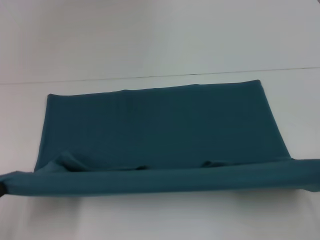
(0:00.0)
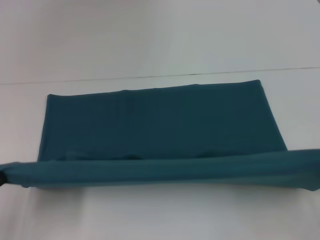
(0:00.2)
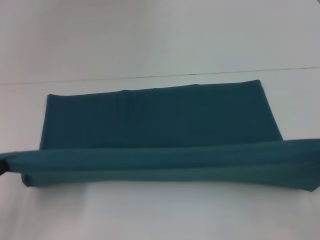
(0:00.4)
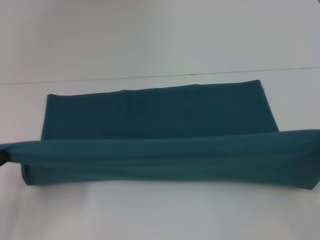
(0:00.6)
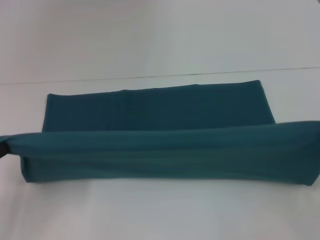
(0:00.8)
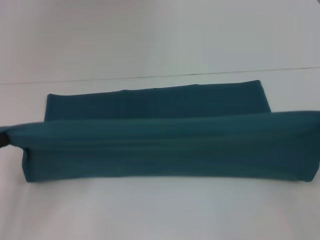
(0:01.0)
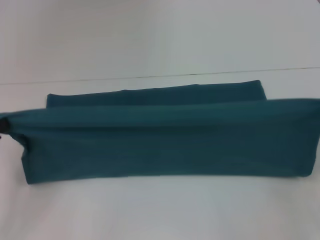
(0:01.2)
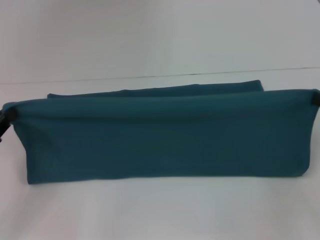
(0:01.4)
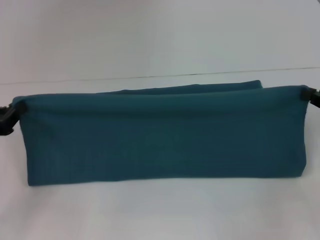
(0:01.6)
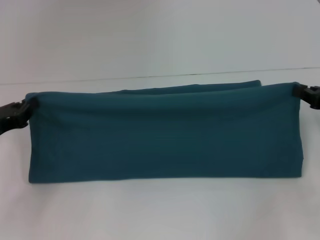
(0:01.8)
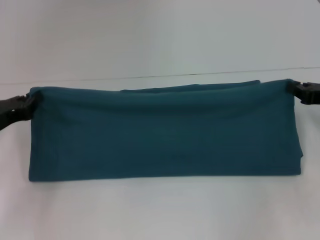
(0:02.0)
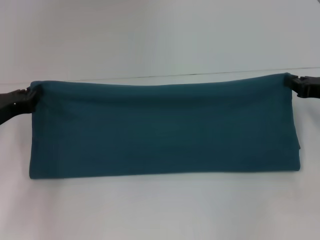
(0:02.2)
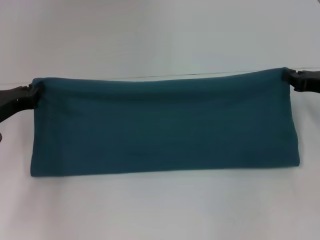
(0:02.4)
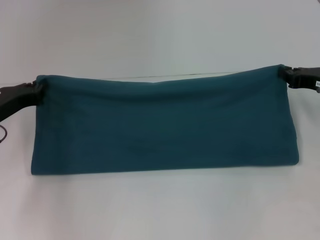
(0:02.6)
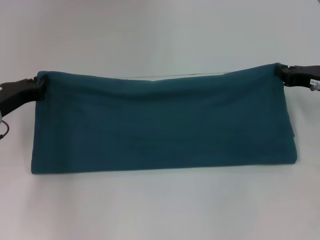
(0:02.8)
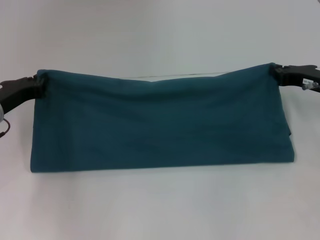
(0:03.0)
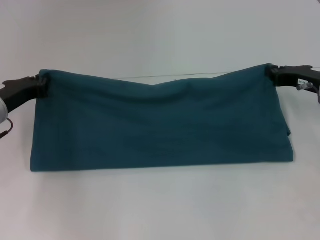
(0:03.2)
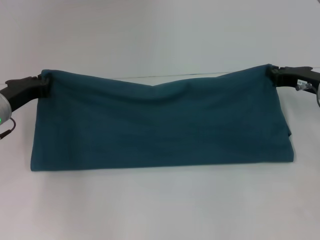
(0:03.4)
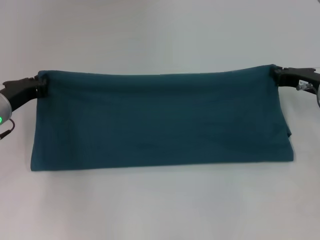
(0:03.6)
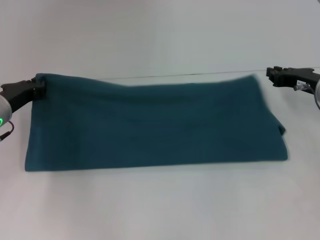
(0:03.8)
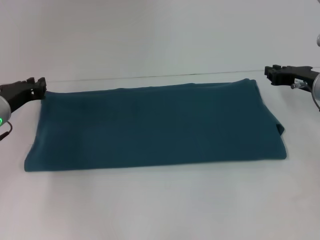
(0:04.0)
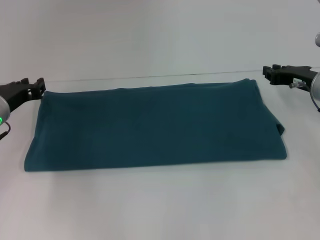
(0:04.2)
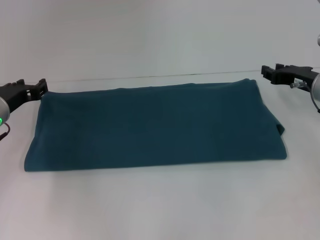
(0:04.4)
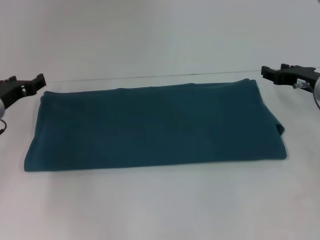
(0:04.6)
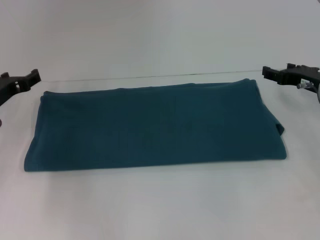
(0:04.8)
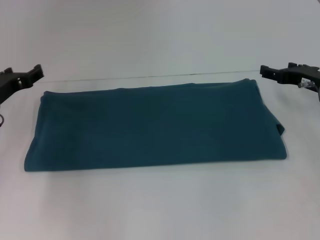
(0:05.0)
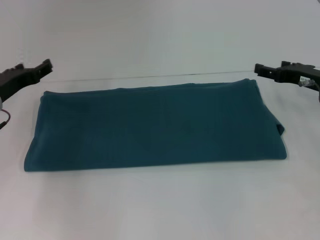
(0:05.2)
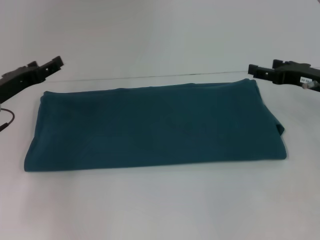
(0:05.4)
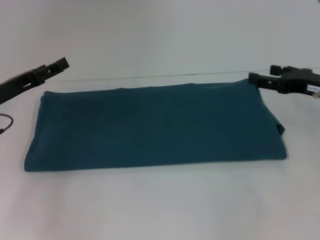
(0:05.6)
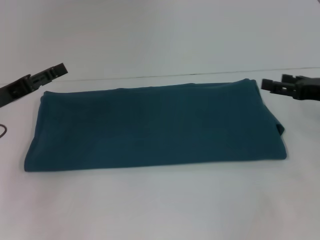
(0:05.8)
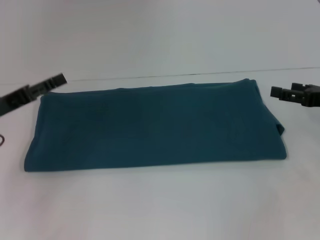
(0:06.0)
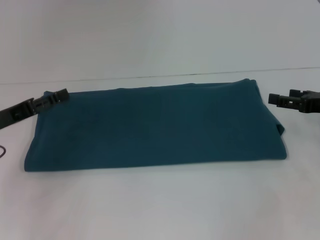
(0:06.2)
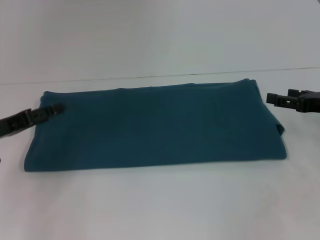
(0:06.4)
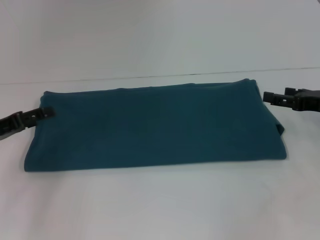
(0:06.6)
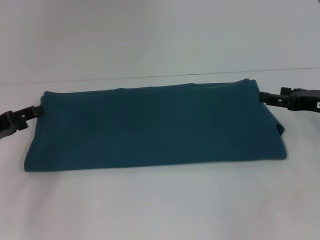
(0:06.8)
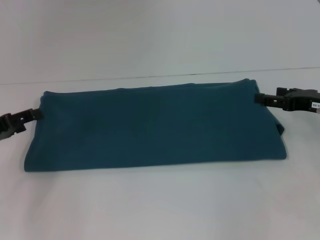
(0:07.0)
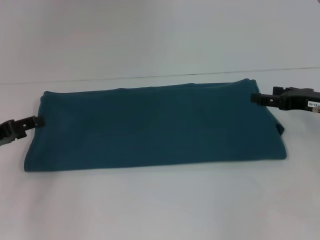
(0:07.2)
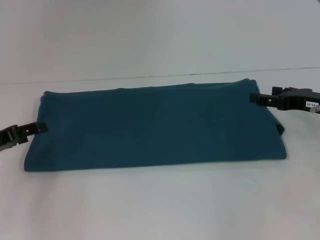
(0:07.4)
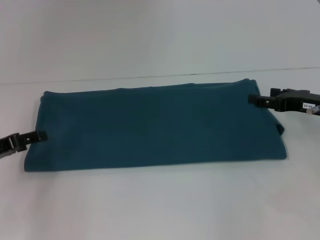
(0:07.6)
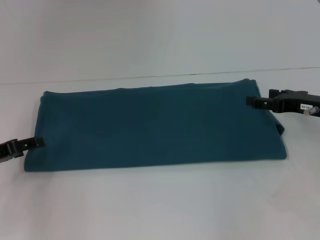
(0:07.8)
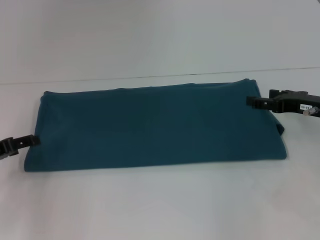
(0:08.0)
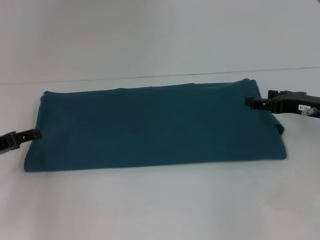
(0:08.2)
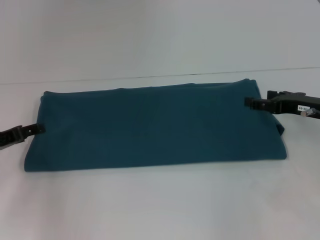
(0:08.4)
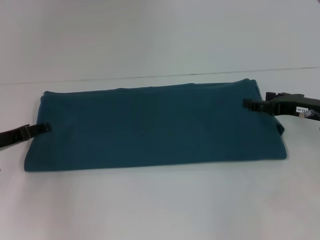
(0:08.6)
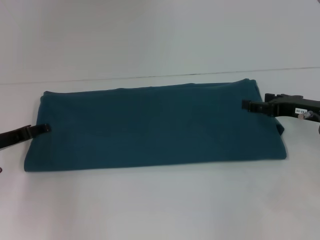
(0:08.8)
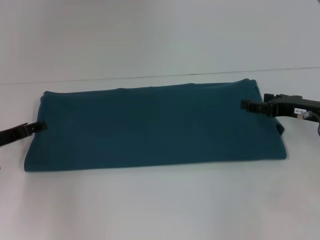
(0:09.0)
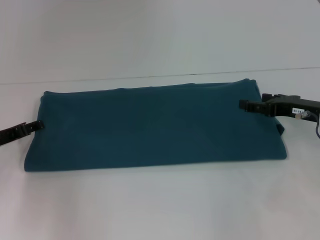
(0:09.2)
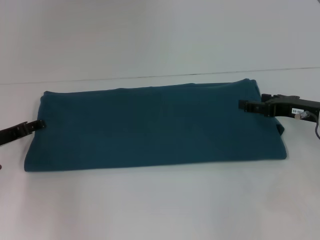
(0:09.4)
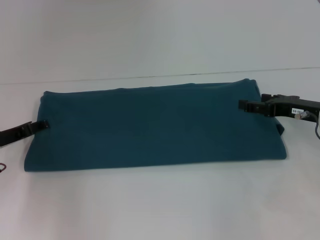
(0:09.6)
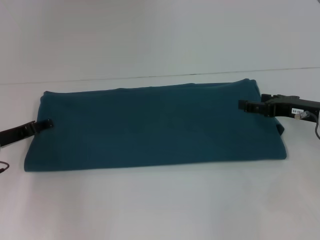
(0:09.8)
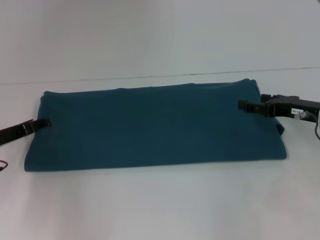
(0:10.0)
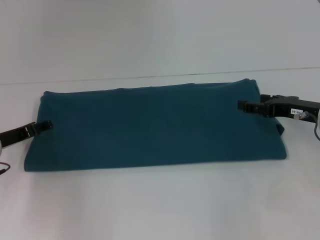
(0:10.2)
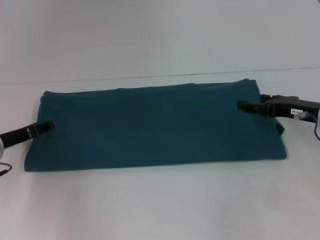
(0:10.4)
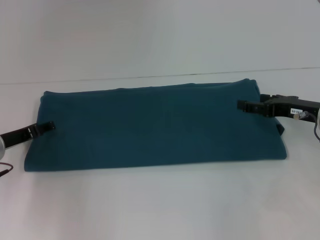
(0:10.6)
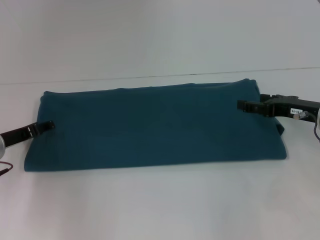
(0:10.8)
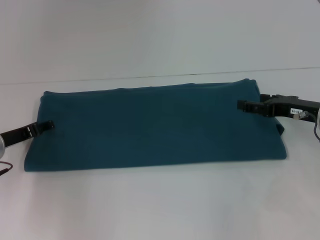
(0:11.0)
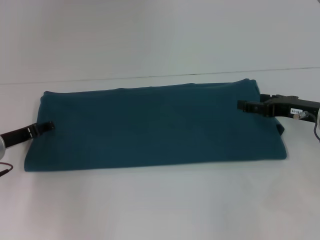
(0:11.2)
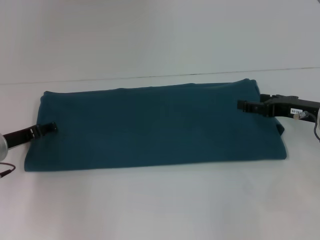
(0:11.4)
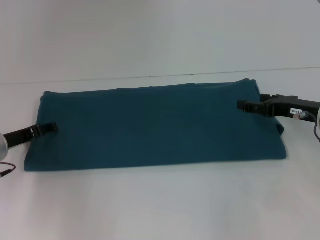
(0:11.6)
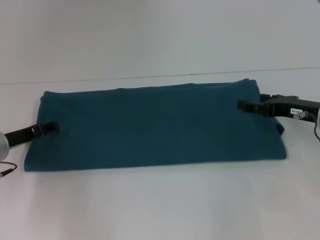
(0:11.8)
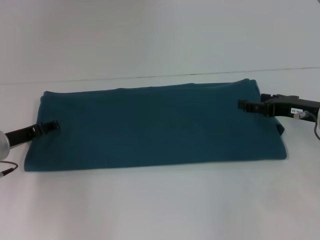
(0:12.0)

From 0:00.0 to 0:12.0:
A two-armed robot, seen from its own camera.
Step, from 0:00.0 to 0:04.6: Fold the clothes to the right.
From 0:00.0 to 0:01.6: The two grippers go approximately 15 cm forward.
From 0:01.6 to 0:03.0: The left gripper heads forward and to the right, covering roughly 10 cm; the right gripper moves forward and to the left, roughly 10 cm.
From 0:03.0 to 0:04.4: The left gripper opens up.
From 0:04.4 to 0:06.0: The left gripper goes approximately 5 cm backward, and opens, while the right gripper is displaced backward and to the right by roughly 10 cm, and opens up.
From 0:07.6 to 0:09.0: The grippers stay close to where they were, moving slightly.
From 0:09.0 to 0:10.4: There are only small adjustments of the grippers.
From 0:10.4 to 0:12.0: The two grippers keep their place.

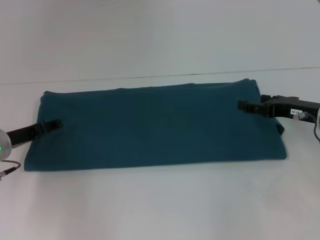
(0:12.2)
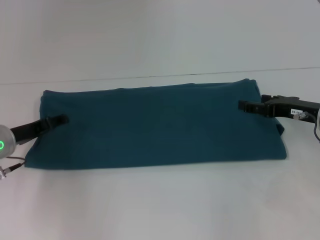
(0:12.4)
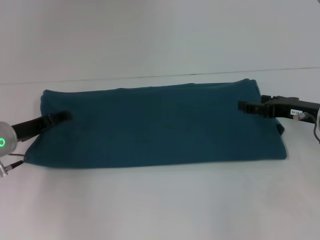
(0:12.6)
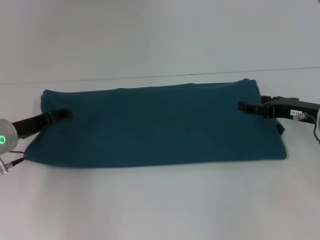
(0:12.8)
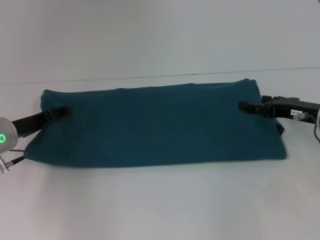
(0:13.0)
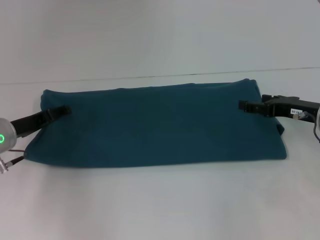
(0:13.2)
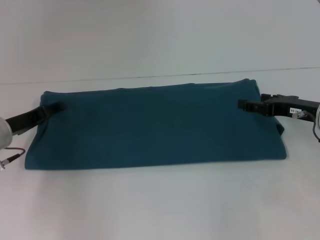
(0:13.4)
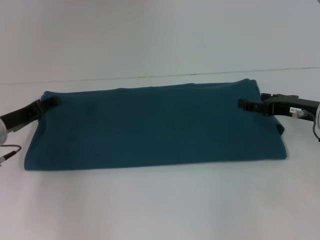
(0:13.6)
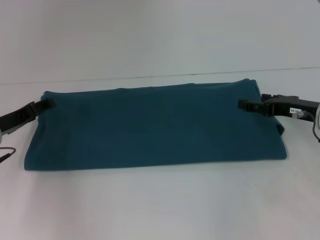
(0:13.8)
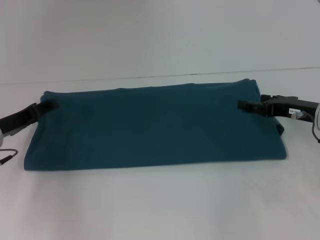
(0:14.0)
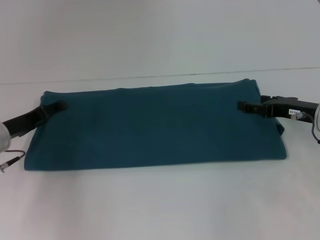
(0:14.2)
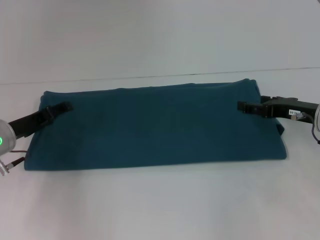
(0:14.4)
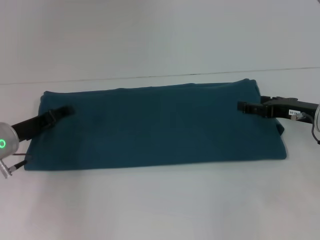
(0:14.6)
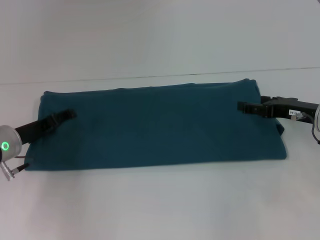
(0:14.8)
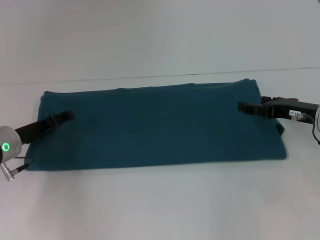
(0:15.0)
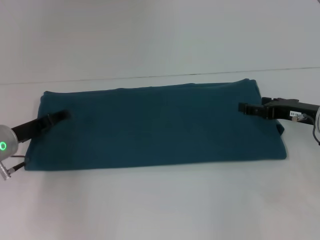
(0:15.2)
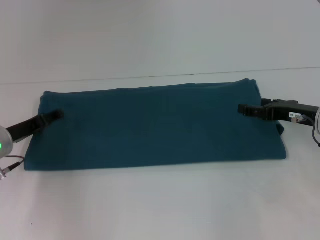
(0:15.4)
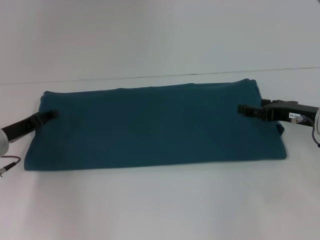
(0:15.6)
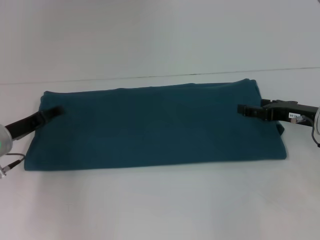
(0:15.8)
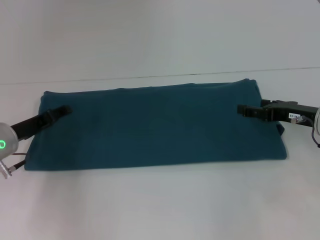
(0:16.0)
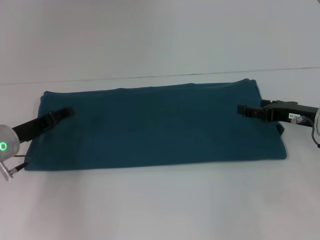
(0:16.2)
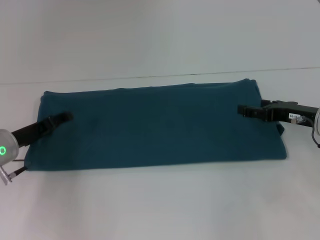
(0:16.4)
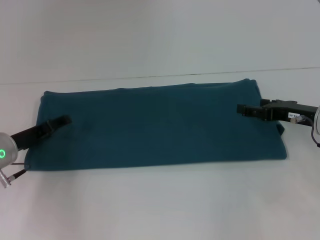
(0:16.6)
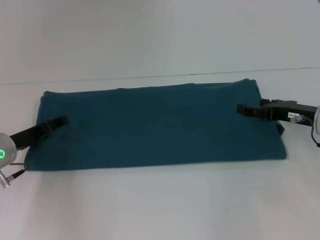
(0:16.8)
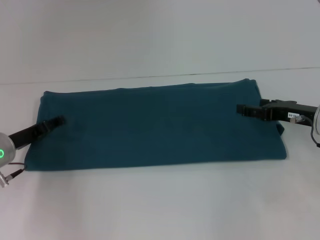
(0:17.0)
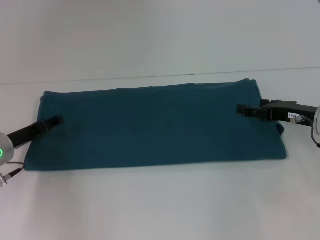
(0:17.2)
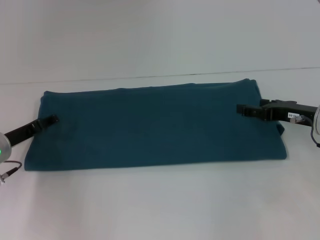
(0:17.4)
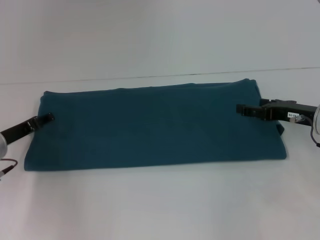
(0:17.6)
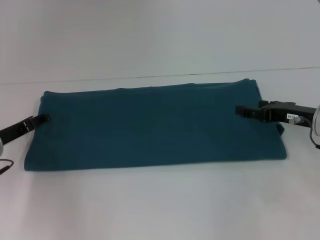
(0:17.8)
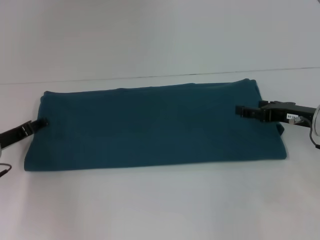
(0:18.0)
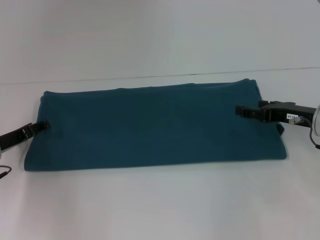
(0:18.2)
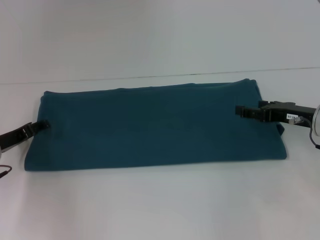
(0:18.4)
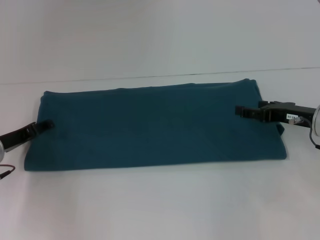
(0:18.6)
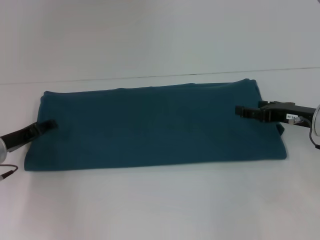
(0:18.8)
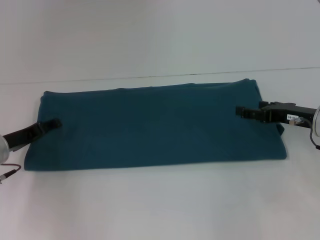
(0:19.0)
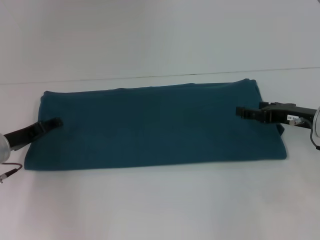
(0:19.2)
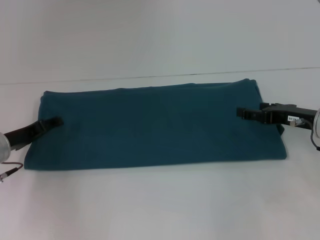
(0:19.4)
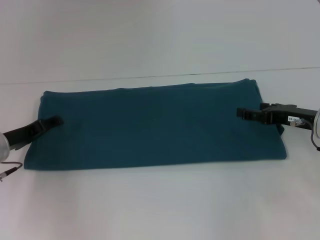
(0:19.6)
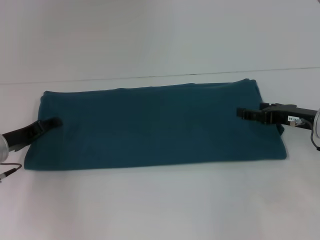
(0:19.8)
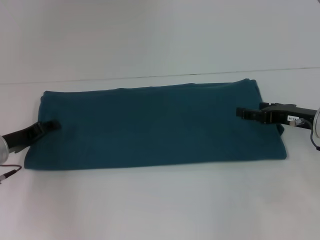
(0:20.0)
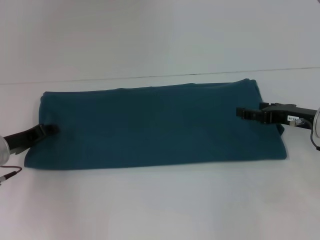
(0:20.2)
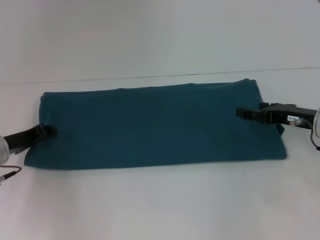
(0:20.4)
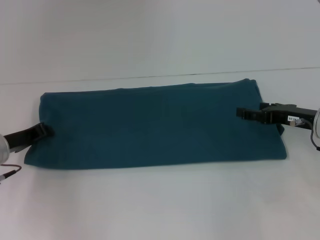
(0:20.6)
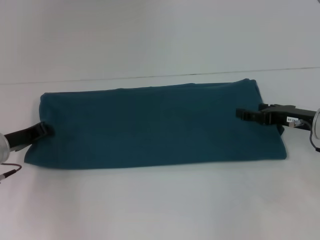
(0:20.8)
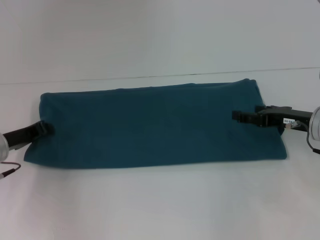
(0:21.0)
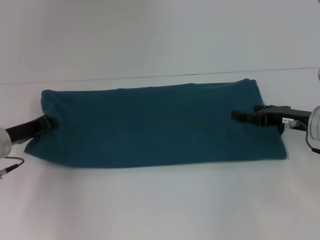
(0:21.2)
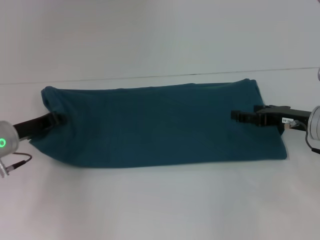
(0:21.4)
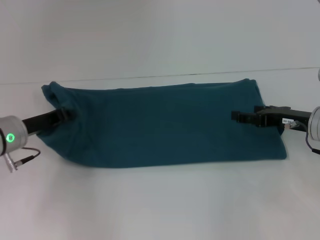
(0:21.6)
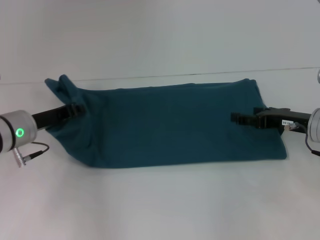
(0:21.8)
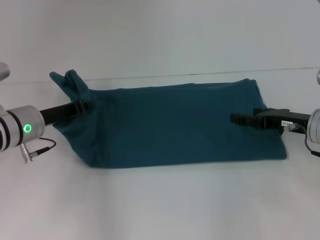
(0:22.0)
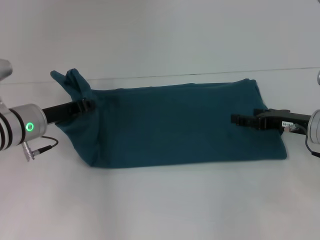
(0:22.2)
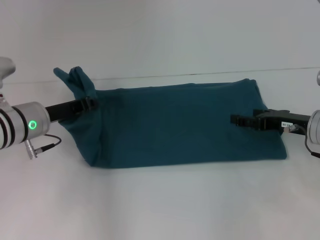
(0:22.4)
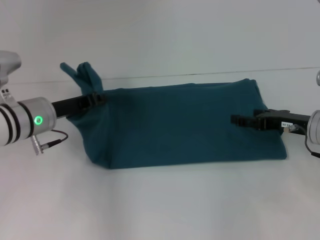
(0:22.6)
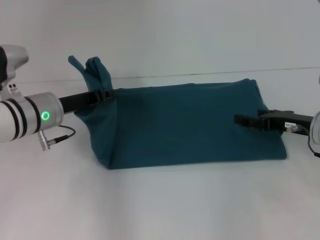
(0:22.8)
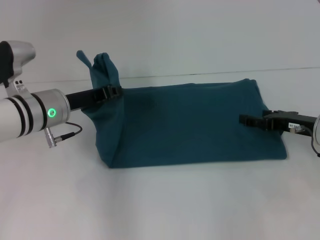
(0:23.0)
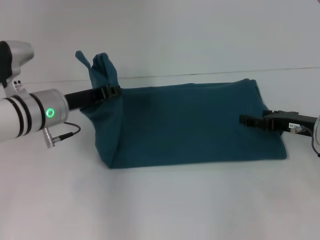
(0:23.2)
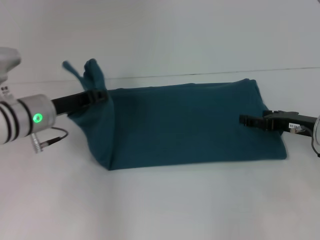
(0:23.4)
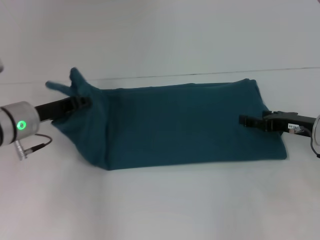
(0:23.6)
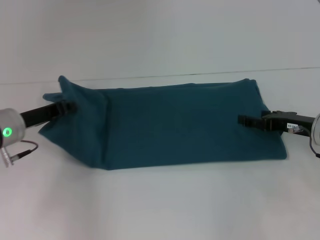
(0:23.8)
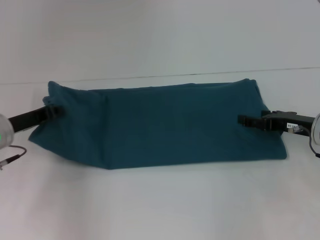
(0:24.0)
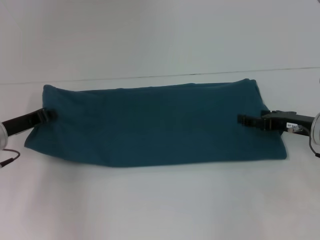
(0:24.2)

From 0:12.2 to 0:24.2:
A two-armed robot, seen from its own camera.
From 0:12.2 to 0:15.2: The grippers make only small movements.
From 0:15.2 to 0:16.6: Neither gripper changes place.
From 0:16.6 to 0:19.8: There are only small adjustments of the grippers.
From 0:19.8 to 0:21.2: The left gripper closes.
From 0:21.2 to 0:22.6: The left gripper is displaced to the right by approximately 5 cm.
From 0:22.6 to 0:24.2: The left gripper goes roughly 5 cm to the left.
